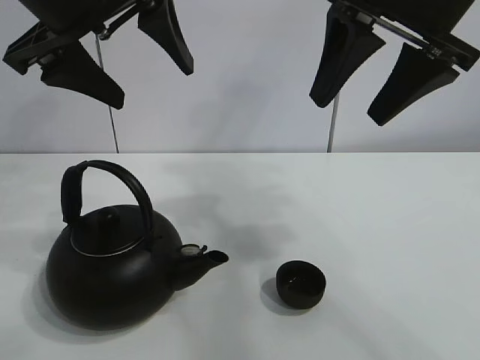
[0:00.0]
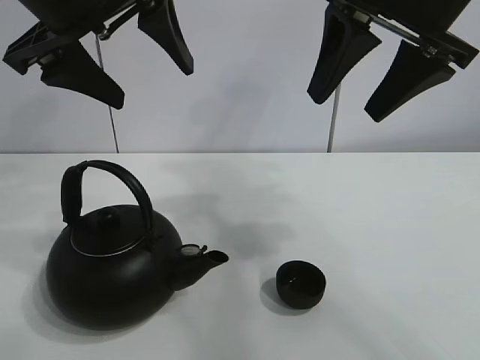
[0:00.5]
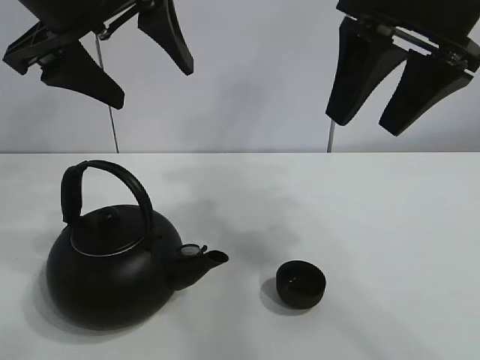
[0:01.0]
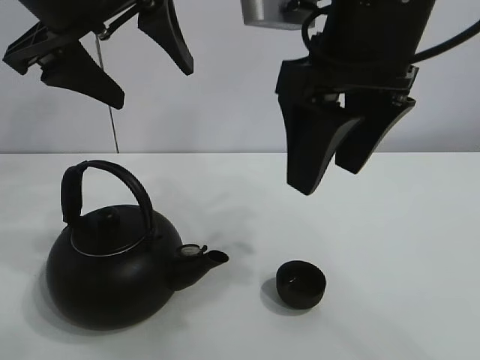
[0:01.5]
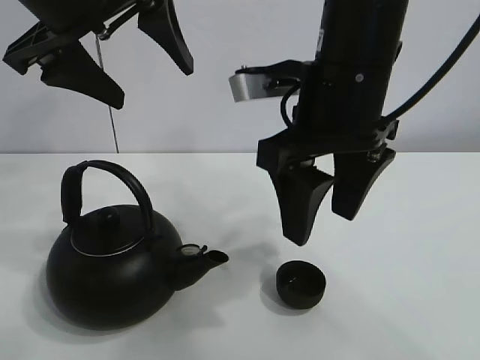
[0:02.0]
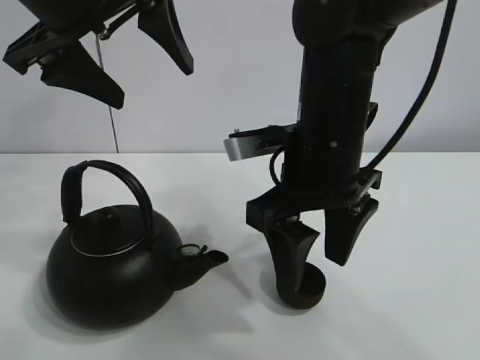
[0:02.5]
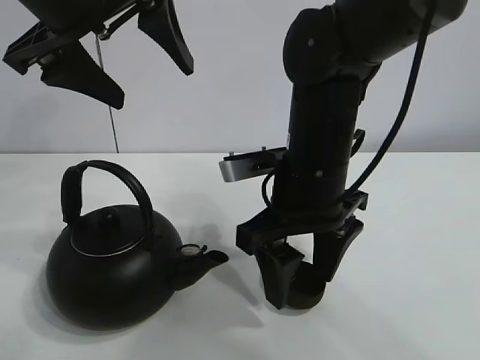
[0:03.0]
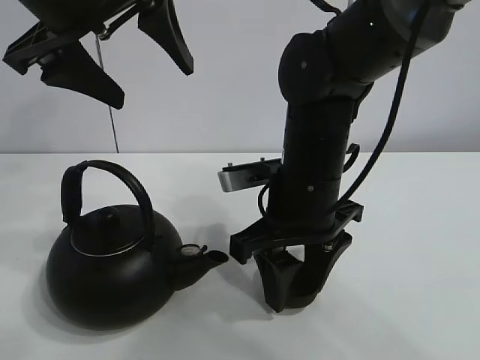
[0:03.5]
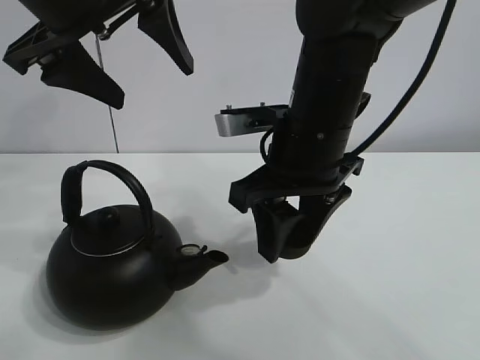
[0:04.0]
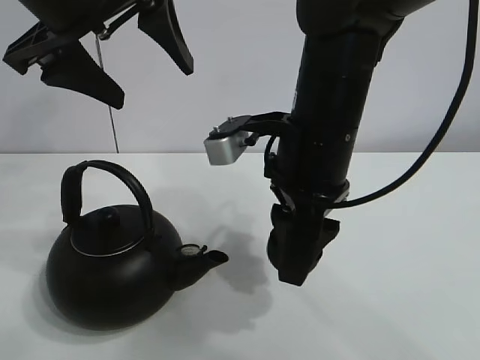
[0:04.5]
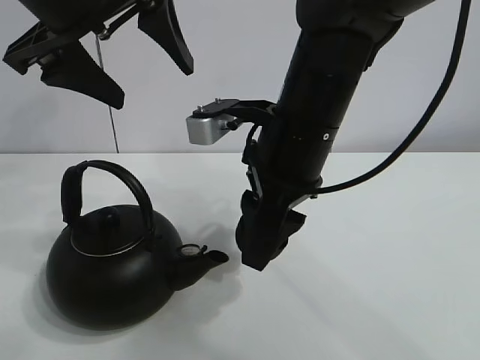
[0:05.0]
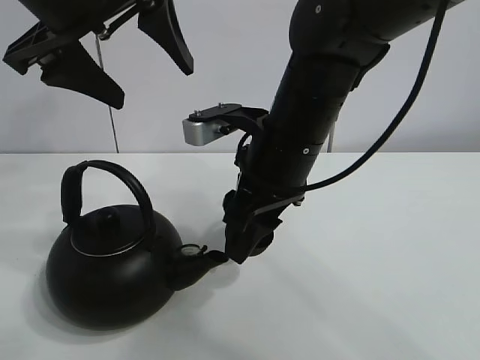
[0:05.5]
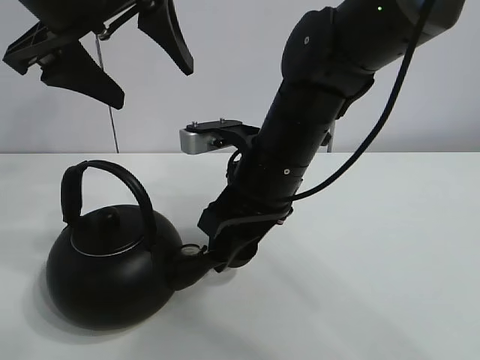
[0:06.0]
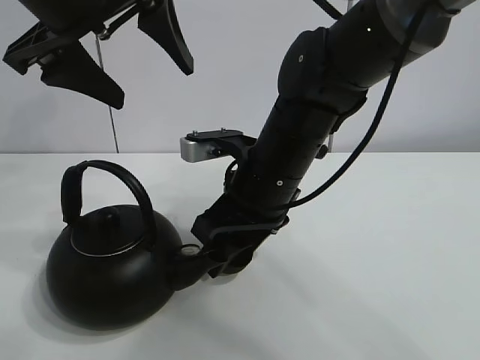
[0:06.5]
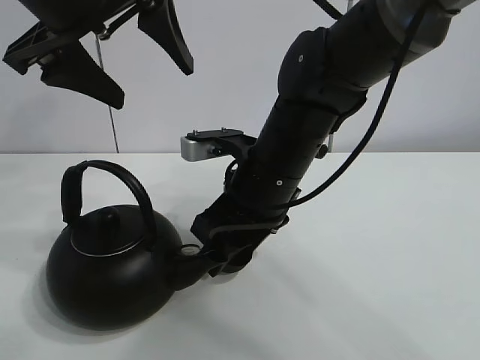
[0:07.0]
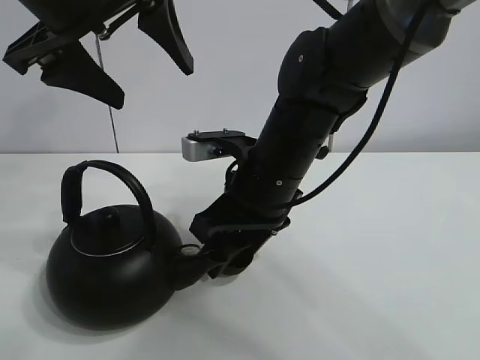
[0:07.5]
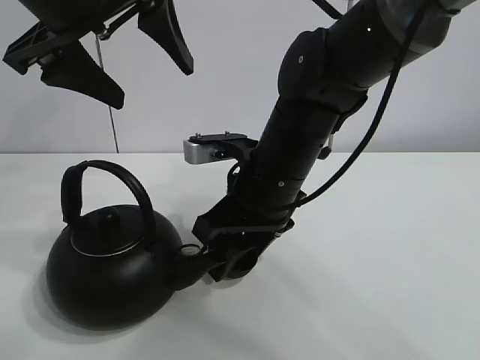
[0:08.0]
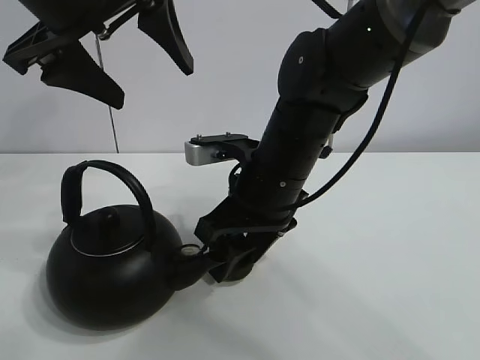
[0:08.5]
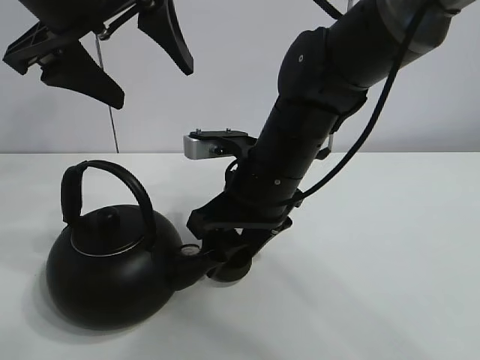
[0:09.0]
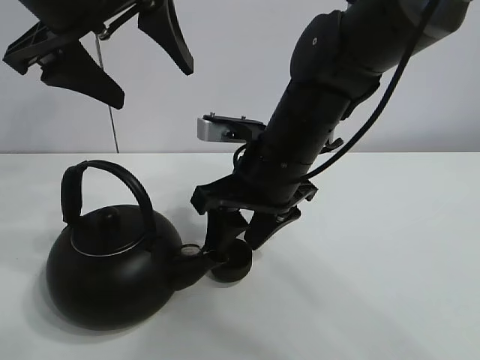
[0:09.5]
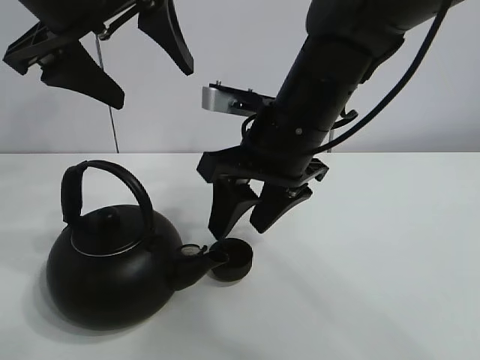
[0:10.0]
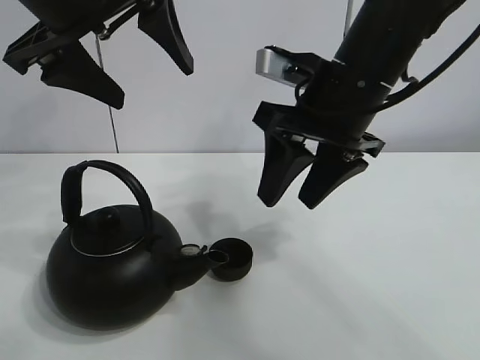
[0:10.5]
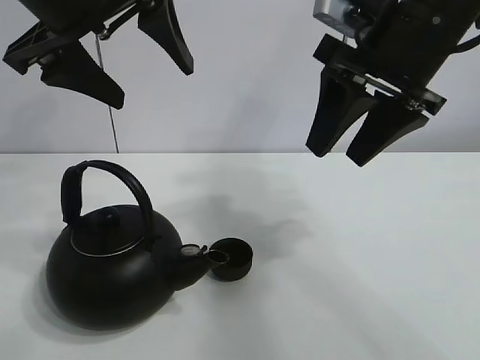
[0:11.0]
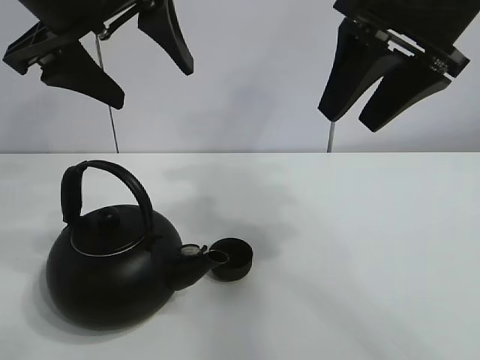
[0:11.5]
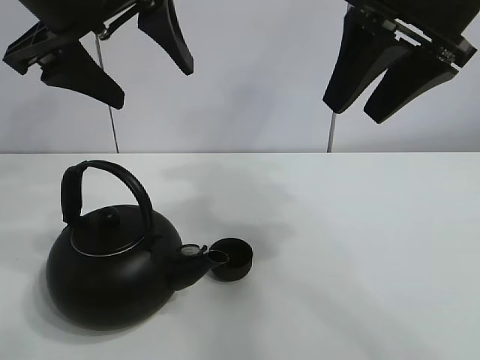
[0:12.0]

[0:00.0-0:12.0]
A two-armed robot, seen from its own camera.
Task of the whole recording: pour tea into the teacup.
Step, 0:00.0 to 0:03.5: Pick up the teacup with the right gripper.
Step, 0:04.0 to 0:09.5: Place the teacup in the center of view with the right gripper.
0:02.0 to 0:04.0: The right gripper goes roughly 5 cm downward, and closes.
0:06.0 to 0:10.0: The grippers make only small movements.
0:10.0 to 0:12.0: The right gripper moves upward and to the right, approximately 15 cm.

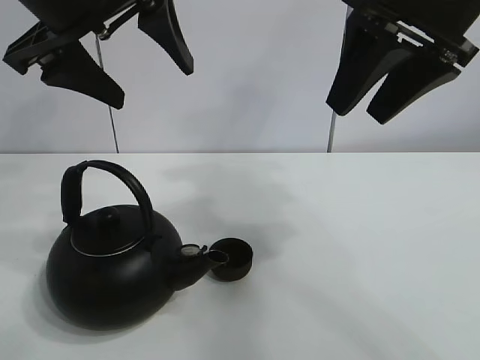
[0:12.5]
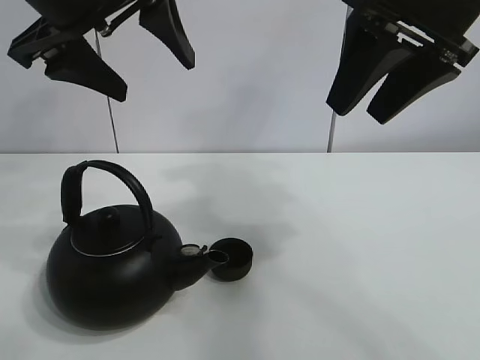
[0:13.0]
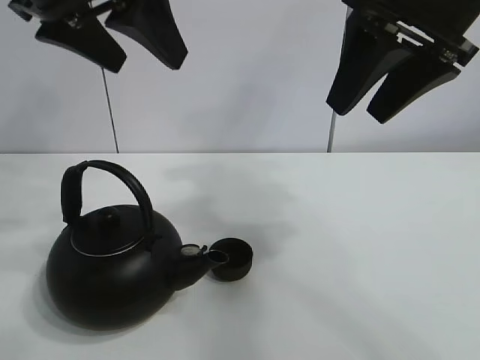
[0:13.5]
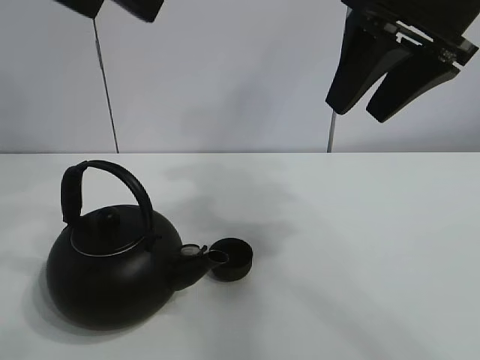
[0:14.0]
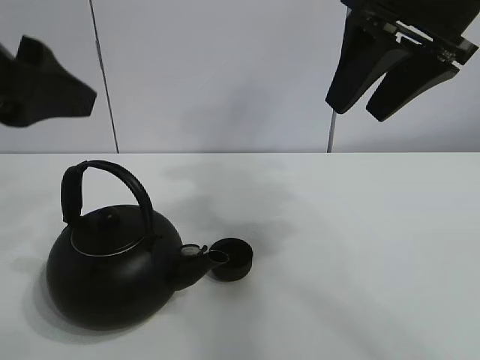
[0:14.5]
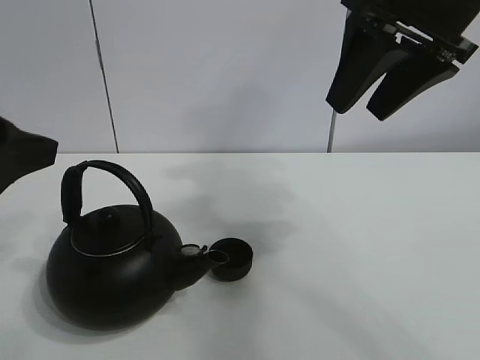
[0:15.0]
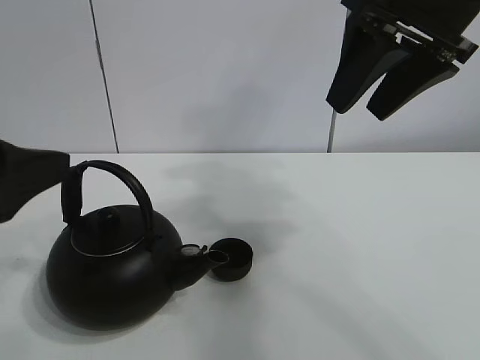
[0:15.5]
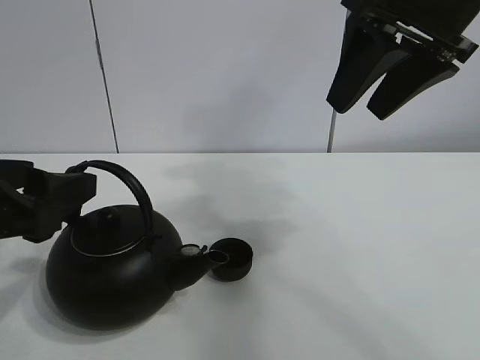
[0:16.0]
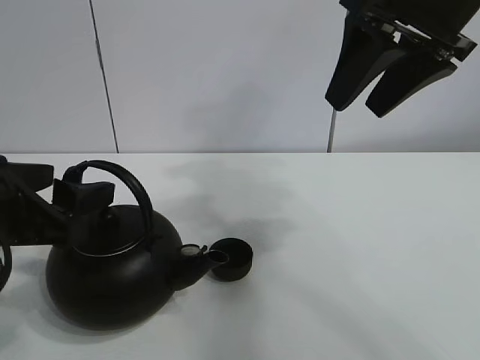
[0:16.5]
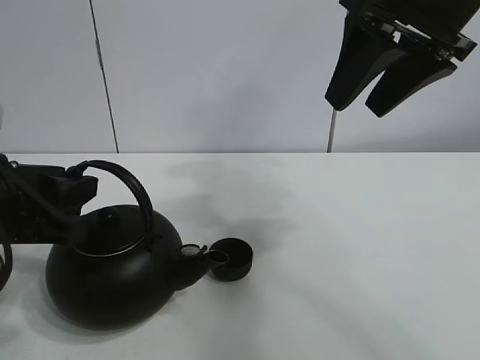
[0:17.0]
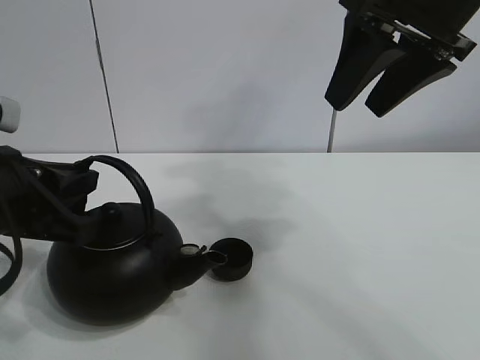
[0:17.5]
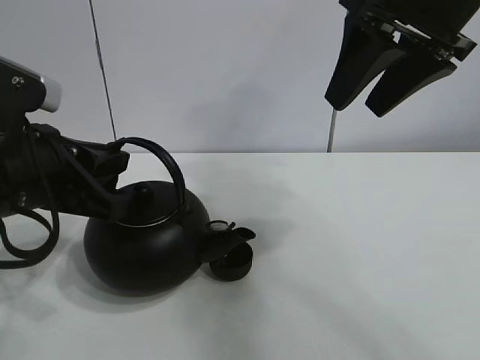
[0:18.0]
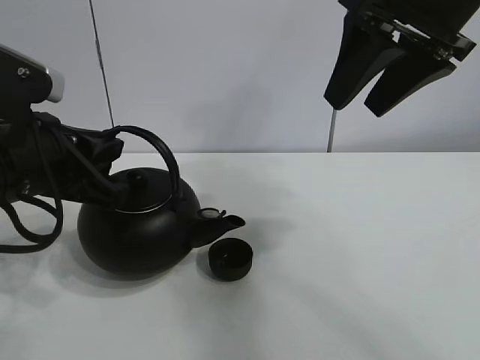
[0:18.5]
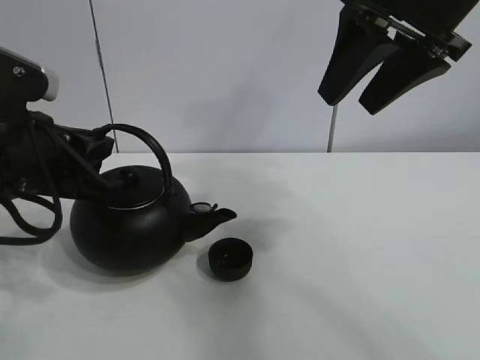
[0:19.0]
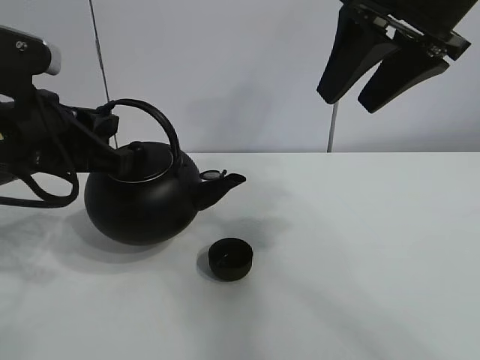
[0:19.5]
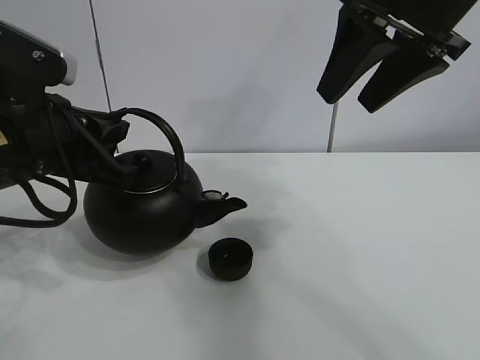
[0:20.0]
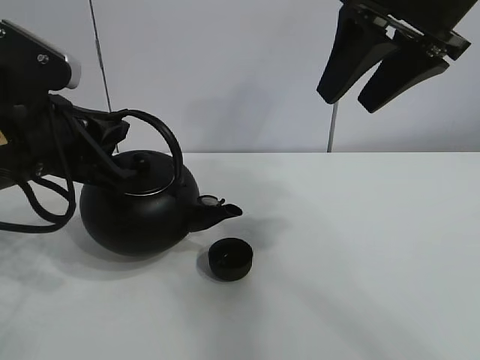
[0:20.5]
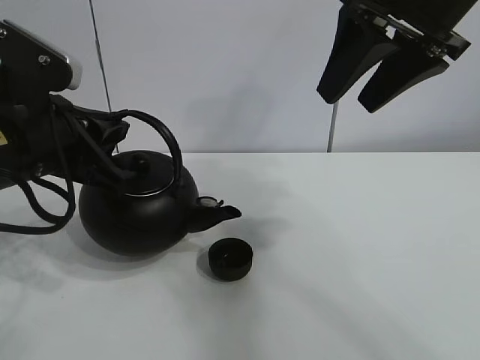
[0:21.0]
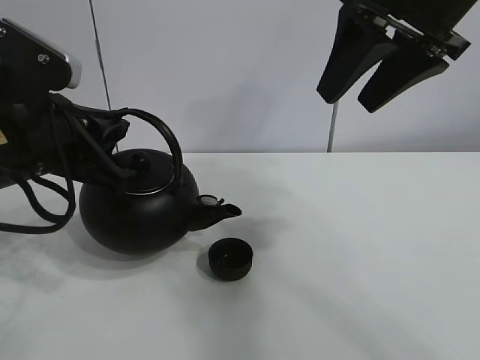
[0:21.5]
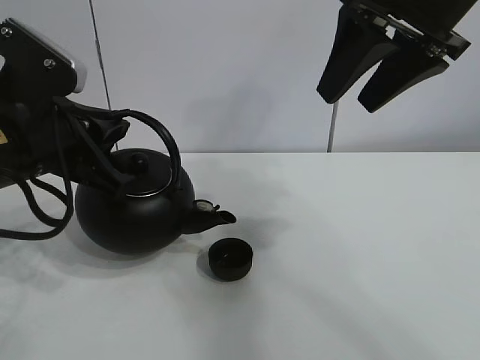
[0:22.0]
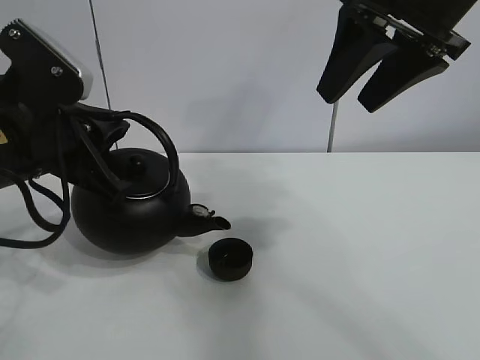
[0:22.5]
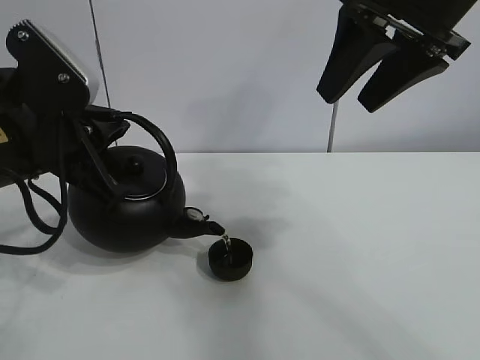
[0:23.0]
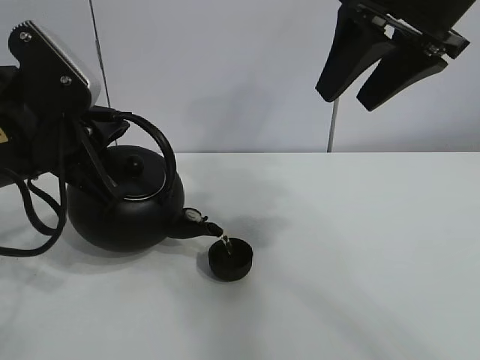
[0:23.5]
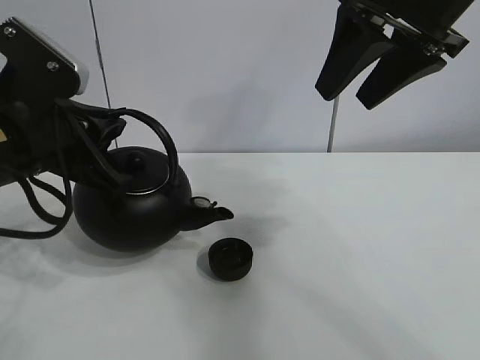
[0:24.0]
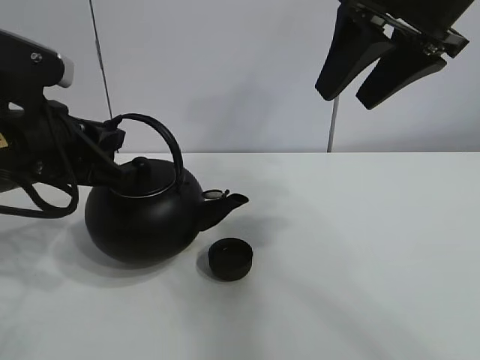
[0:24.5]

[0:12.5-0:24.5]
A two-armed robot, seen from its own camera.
Task of the whole recording: pour tea into the teacup.
Step, 0:12.5 to 0:17.0: Pick up the teapot with the left gripper.
Step, 0:17.5 to 0:24.0: Pour tea into the teacup with the left gripper.
0:12.5 to 0:14.5: The left gripper travels backward and to the left by roughly 10 cm.
0:14.5 to 0:16.5: The left gripper shifts roughly 15 cm downward.
0:16.5 to 0:18.5: The left gripper moves some 5 cm, and closes.
0:18.5 to 0:22.5: There are only small adjustments of the grippers.
0:22.5 to 0:24.5: The grippers stay close to where they were, moving slightly.

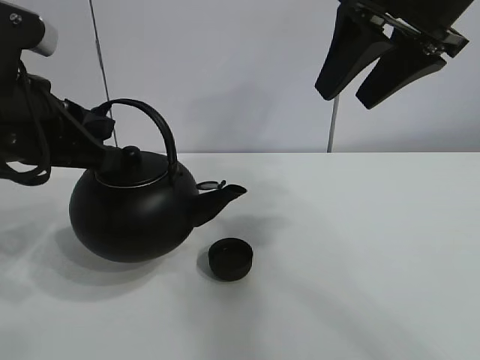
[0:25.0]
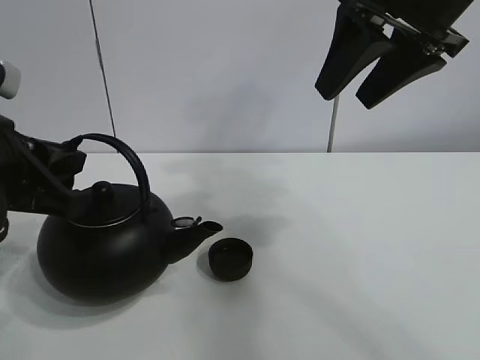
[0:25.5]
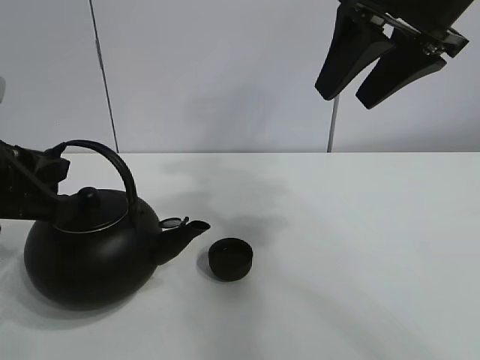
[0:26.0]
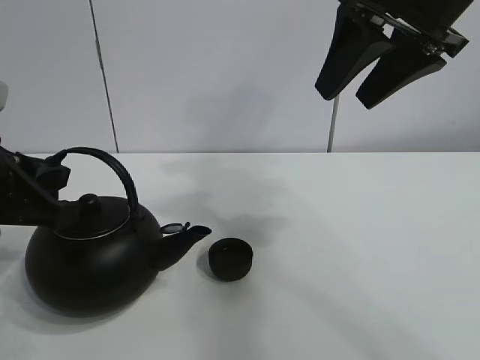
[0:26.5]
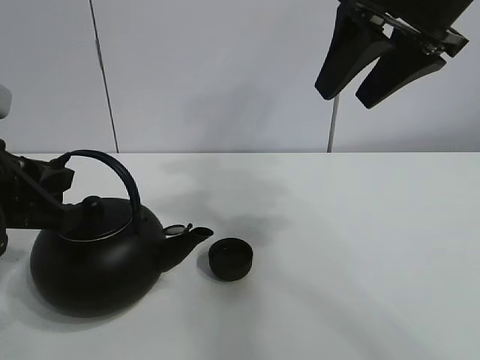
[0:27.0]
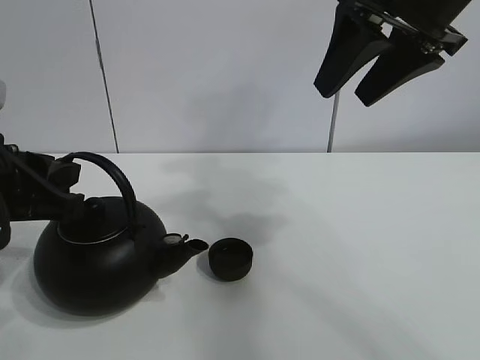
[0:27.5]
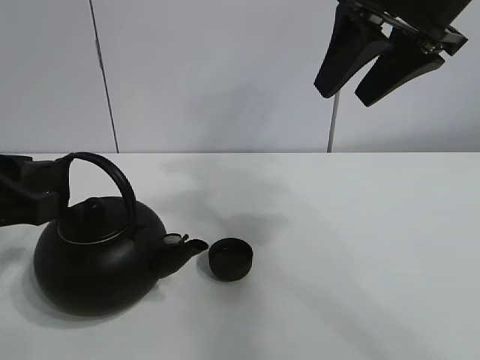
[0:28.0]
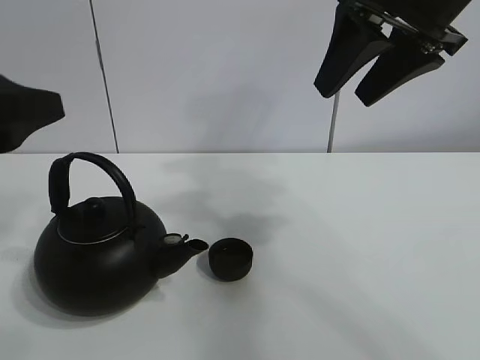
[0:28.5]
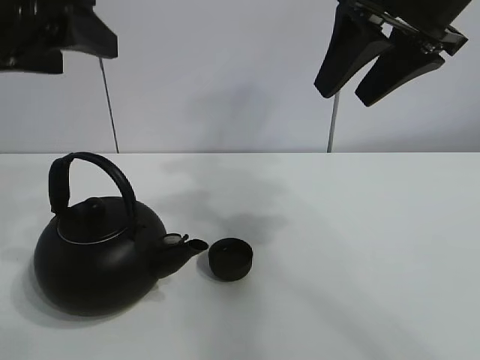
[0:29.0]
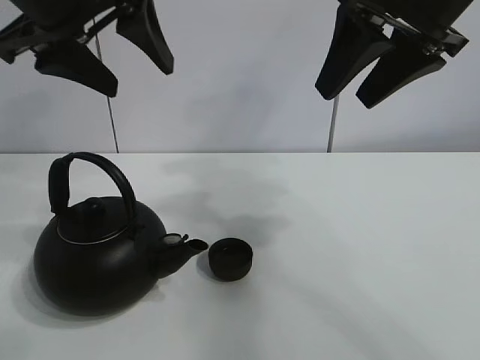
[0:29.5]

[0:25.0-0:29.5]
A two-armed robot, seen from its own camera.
Task of the whole recording: pour tea into the teacup.
0:25.0 to 0:27.0: The left gripper moves about 5 cm.
0:27.0 to 0:29.5: The left gripper goes approximately 20 cm upward, to the right and forward, and opens its fingers.
